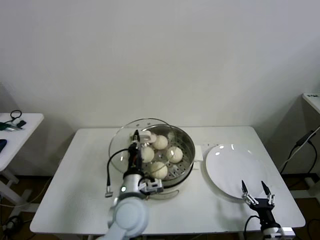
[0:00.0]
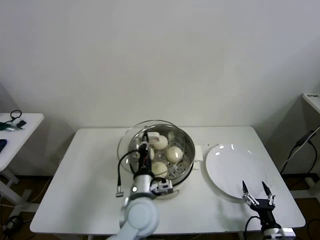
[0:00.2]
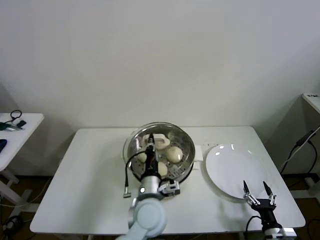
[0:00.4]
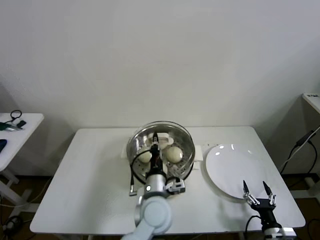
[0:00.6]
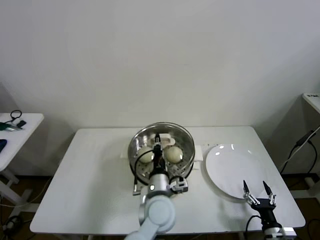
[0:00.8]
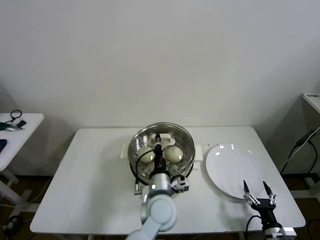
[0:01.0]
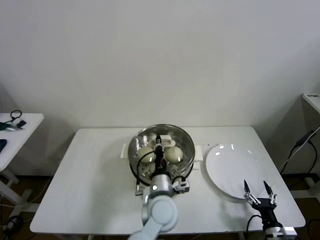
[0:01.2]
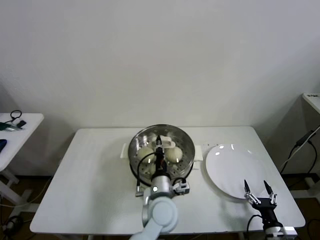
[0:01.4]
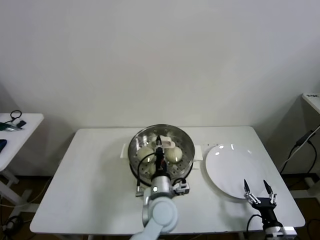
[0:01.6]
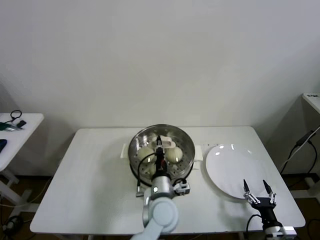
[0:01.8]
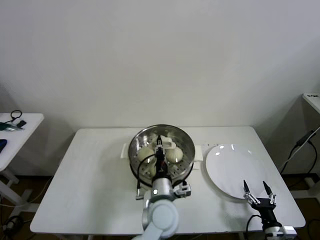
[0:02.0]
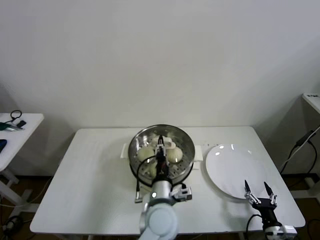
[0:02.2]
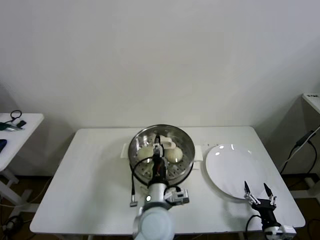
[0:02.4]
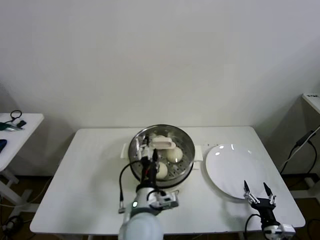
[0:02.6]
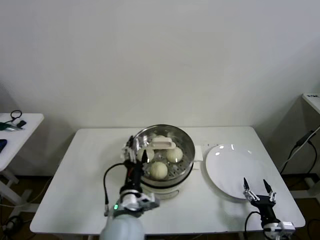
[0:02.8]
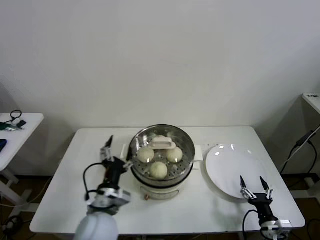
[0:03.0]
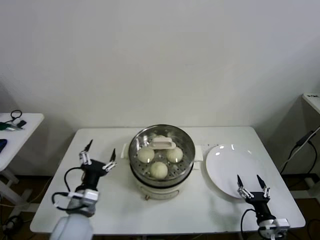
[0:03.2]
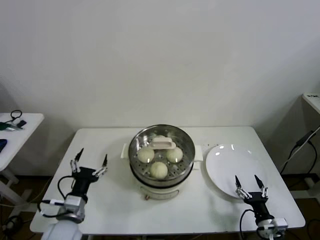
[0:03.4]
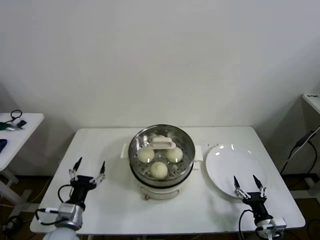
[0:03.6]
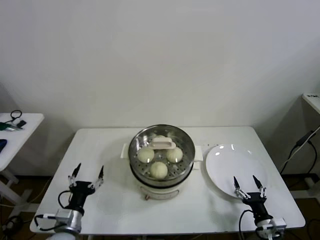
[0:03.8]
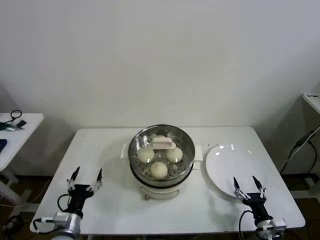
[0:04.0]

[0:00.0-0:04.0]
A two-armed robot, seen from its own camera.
Task of the whole recording: take steamed baozi put them in steamer then cover it.
Step, 0:00.0 to 0:02.4: Place the pot lid on the steamer with left gripper.
0:00.0 to 0:01.4: The left gripper goes approximately 10 cm to the right.
0:01.4 to 0:02.6: The left gripper shifts some 5 cm backward, and opens up.
0:02.6 to 0:04.0: The left gripper travels to the left and downward by roughly 30 cm.

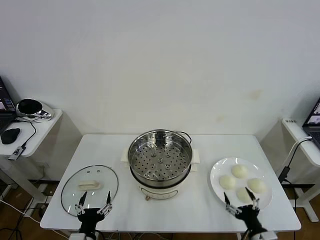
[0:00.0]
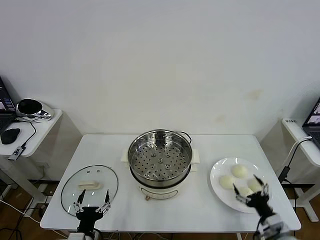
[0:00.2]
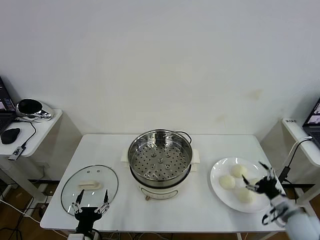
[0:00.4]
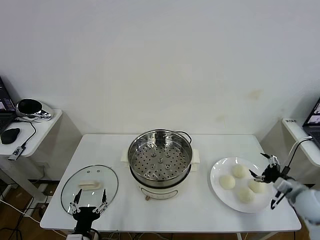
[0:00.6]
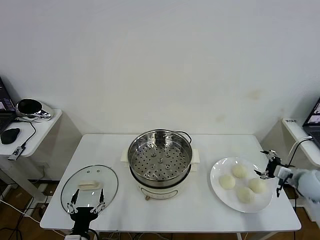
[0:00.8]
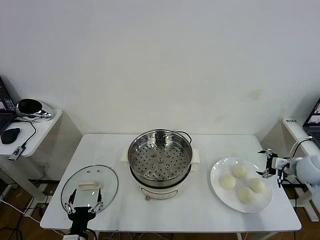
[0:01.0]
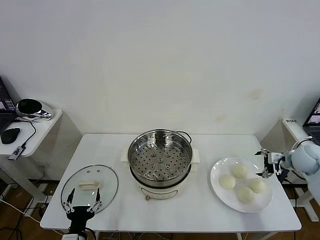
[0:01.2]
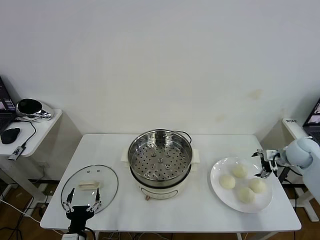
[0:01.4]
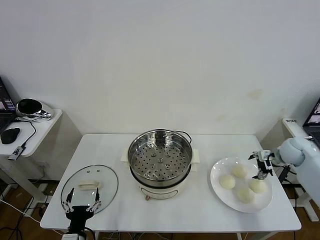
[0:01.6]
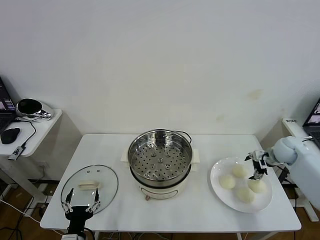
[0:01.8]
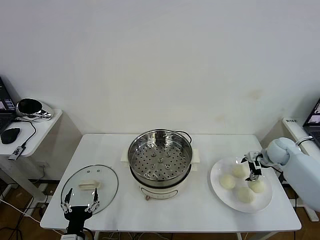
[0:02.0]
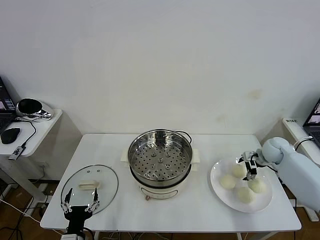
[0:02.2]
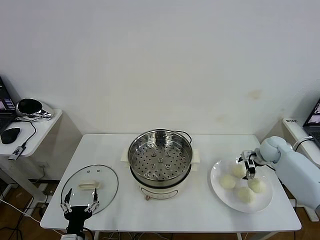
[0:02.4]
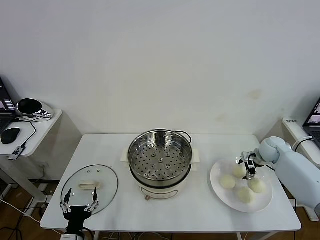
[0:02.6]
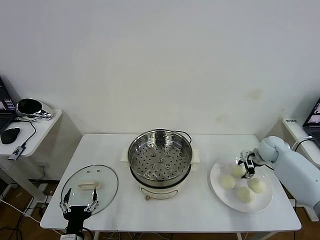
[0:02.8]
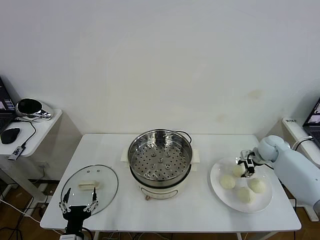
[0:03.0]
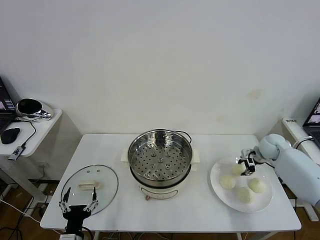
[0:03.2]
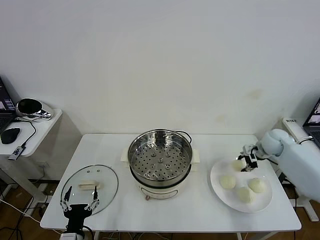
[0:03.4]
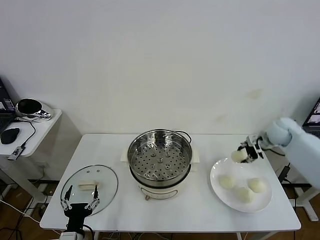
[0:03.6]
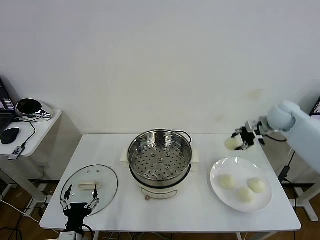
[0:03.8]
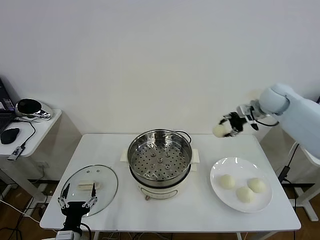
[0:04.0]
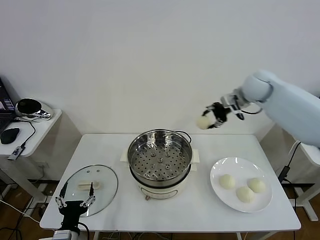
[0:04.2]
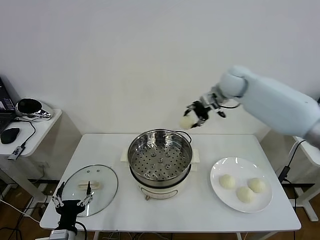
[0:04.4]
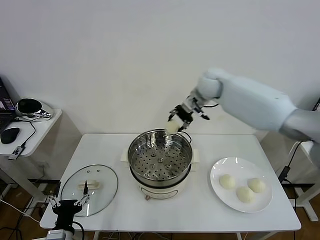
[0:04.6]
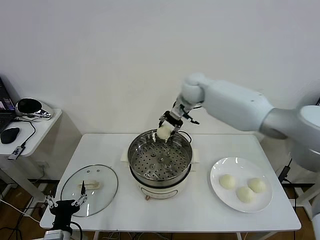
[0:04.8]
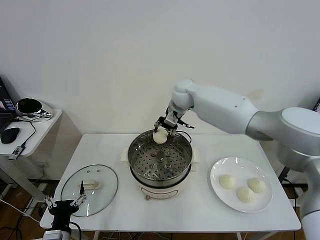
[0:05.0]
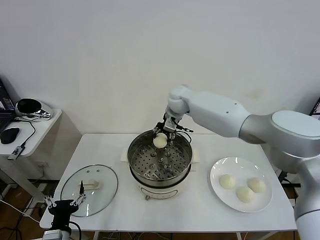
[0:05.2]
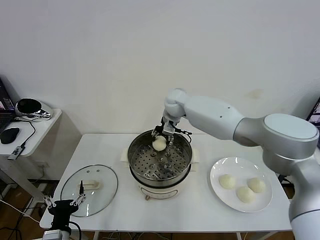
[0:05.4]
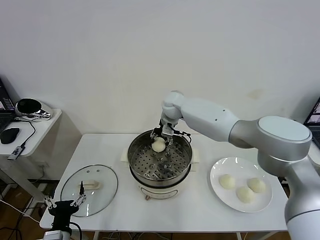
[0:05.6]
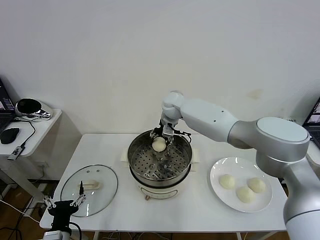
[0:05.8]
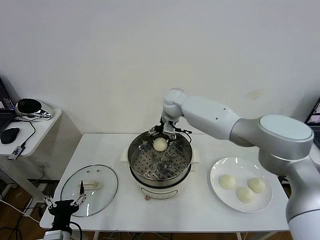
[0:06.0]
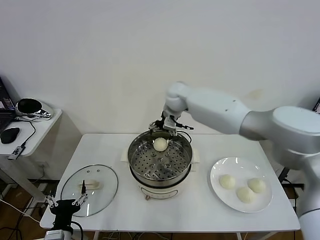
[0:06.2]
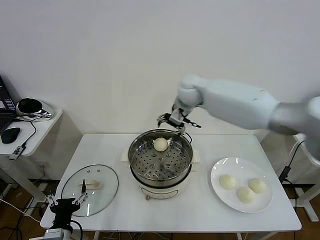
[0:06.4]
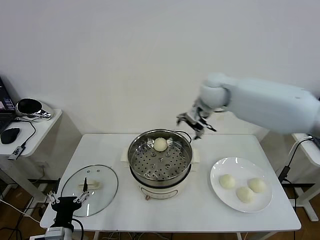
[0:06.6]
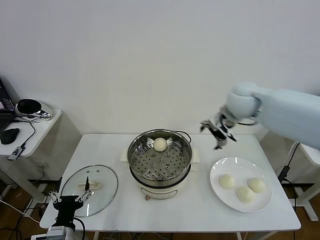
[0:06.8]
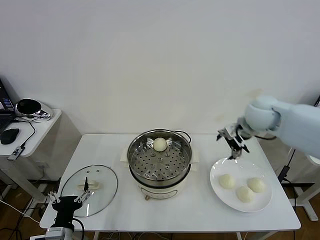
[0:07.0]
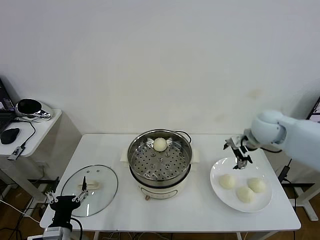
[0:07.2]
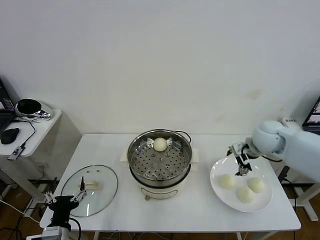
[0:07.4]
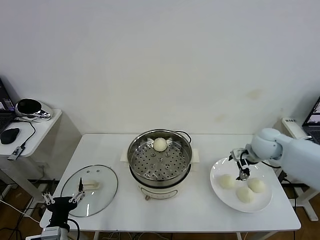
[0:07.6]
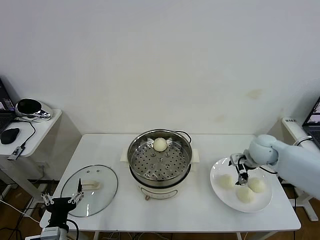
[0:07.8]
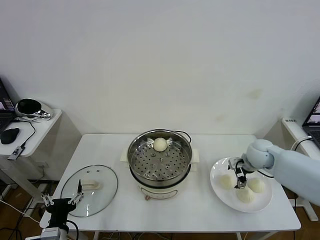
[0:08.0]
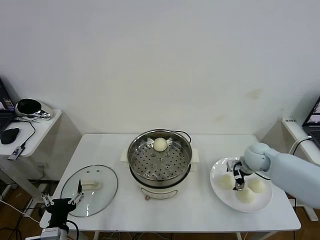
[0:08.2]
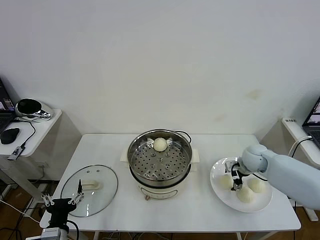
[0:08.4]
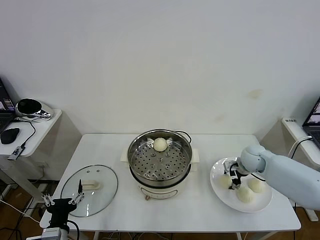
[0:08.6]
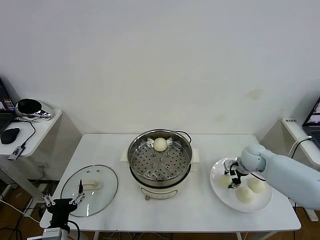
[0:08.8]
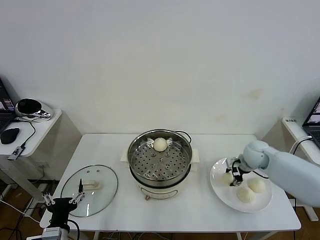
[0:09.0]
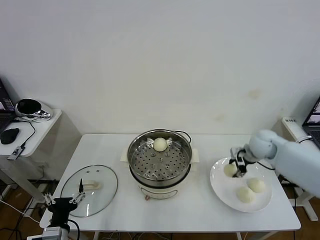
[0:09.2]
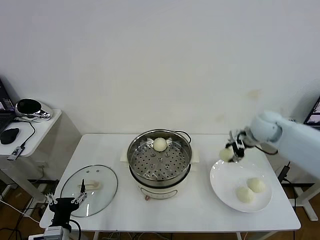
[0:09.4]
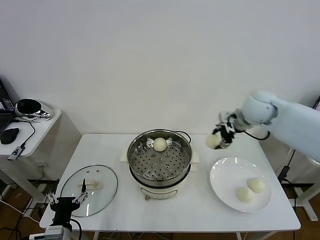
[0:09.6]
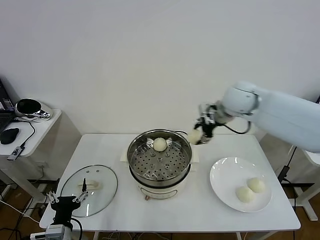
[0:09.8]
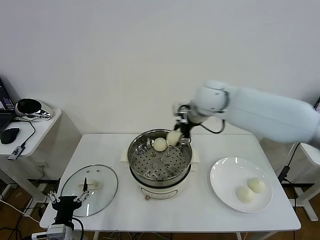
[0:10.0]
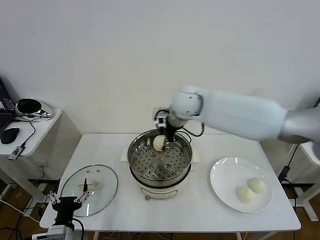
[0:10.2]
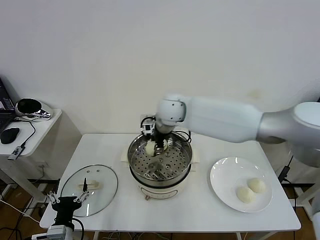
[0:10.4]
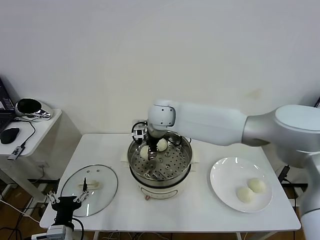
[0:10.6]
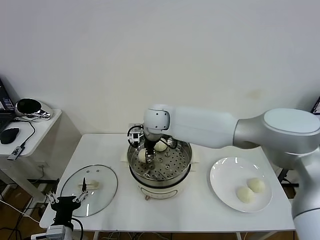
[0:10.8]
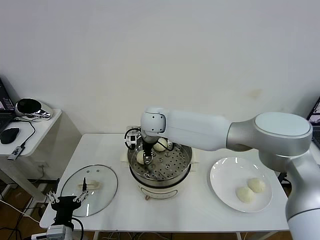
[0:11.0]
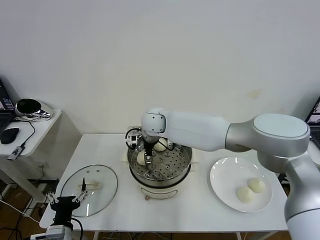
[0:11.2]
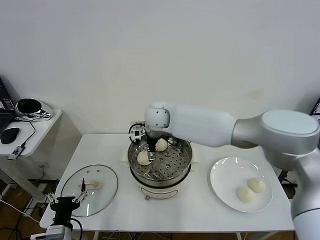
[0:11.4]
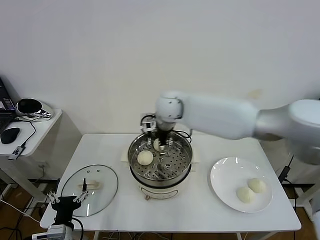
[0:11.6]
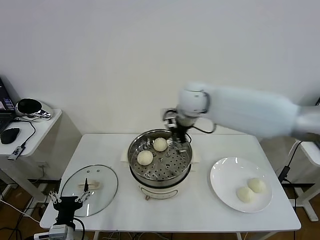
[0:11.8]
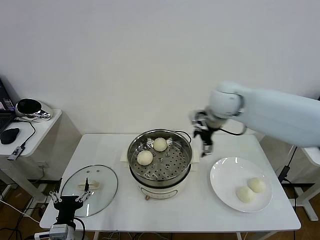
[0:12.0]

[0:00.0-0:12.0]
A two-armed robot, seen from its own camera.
Task of the whole recording: take steamed baozi put them in steamer then cover it.
Step, 0:00.0 to 0:02.8: Grasp the baozi in the plate with right gripper.
Step, 0:03.0 to 0:06.0: Place the baozi on the steamer with right gripper.
Step, 0:06.2 to 0:08.8: Grasp the baozi in the plate with right gripper.
Step, 0:09.0 to 0:11.4: Place the baozi on the steamer with right gripper.
0:01.6 to 0:03.0: The right gripper ends up some 5 cm from where it was, and closes up.
0:03.0 to 0:04.4: The right gripper is displaced to the left and upward by roughly 35 cm.
0:04.4 to 0:06.0: The right gripper shifts roughly 15 cm to the left and downward, and opens its fingers.
0:06.0 to 0:07.6: The right gripper moves to the right and backward, some 35 cm.
0:07.6 to 0:09.0: The right gripper closes up.
0:09.0 to 0:10.4: The right gripper goes about 35 cm to the left and upward.
0:10.4 to 0:12.0: The right gripper is displaced to the right by about 20 cm, and opens up.

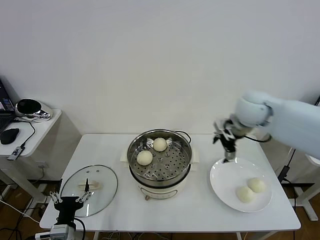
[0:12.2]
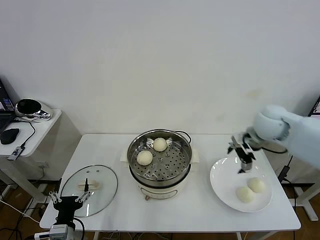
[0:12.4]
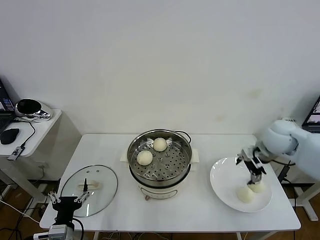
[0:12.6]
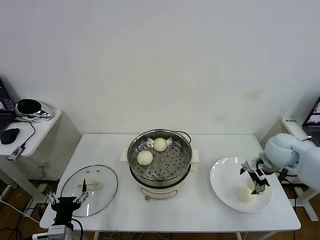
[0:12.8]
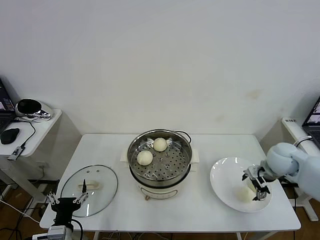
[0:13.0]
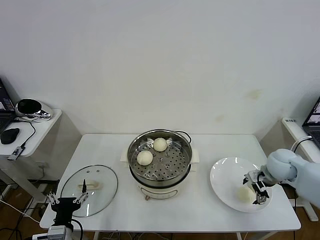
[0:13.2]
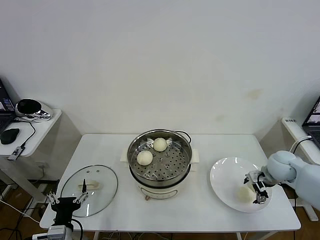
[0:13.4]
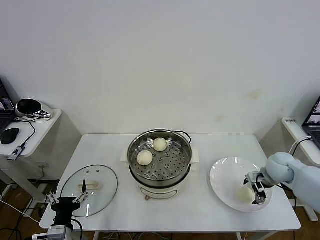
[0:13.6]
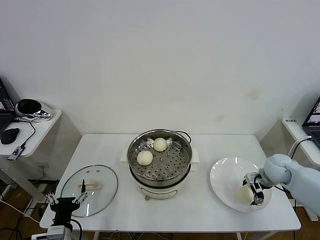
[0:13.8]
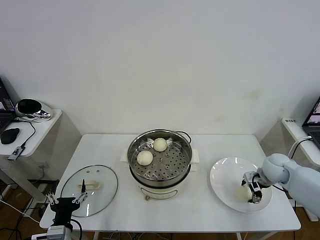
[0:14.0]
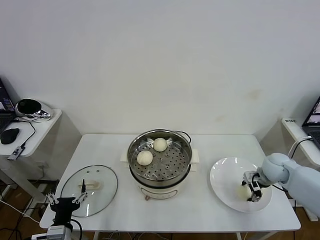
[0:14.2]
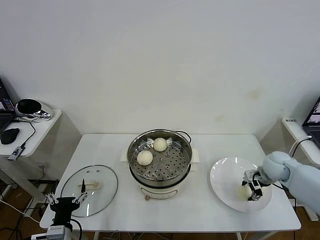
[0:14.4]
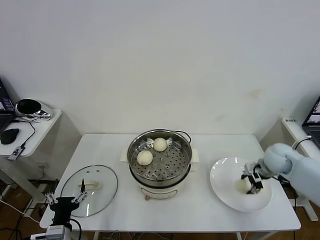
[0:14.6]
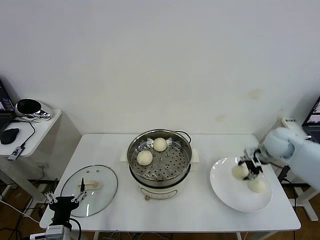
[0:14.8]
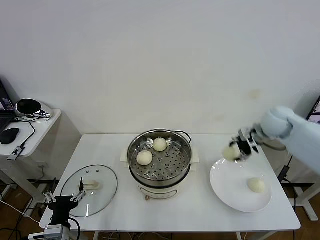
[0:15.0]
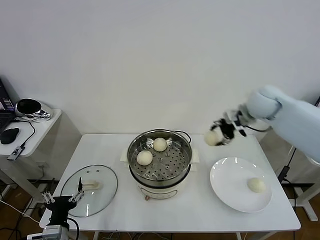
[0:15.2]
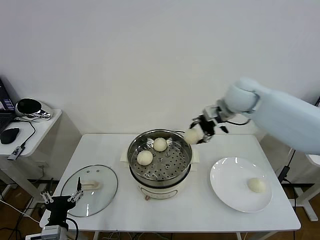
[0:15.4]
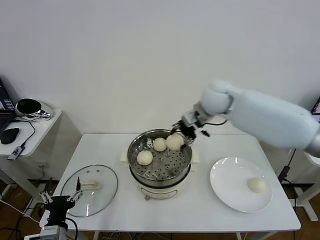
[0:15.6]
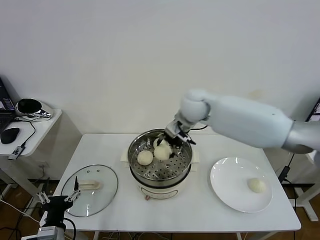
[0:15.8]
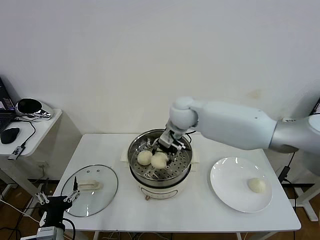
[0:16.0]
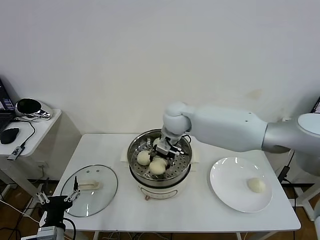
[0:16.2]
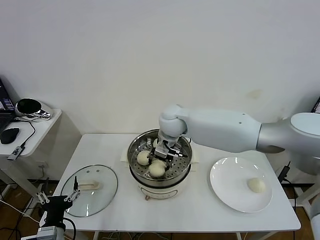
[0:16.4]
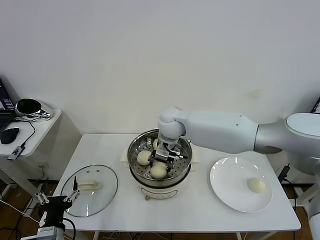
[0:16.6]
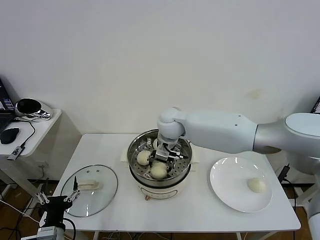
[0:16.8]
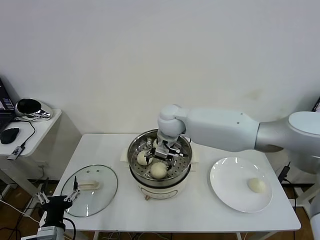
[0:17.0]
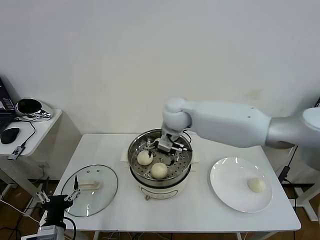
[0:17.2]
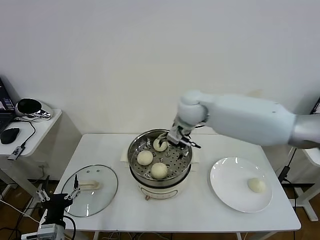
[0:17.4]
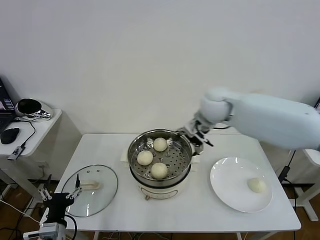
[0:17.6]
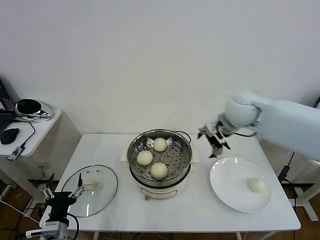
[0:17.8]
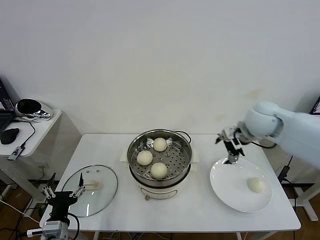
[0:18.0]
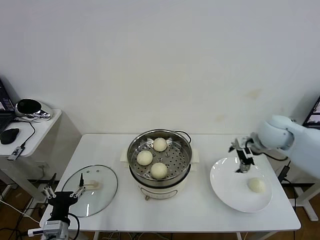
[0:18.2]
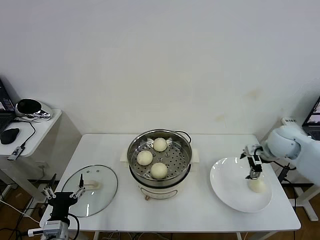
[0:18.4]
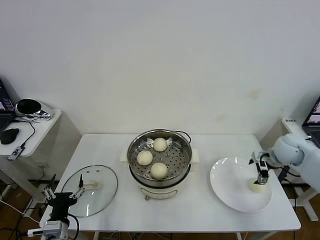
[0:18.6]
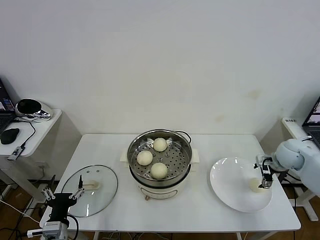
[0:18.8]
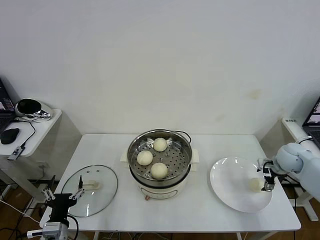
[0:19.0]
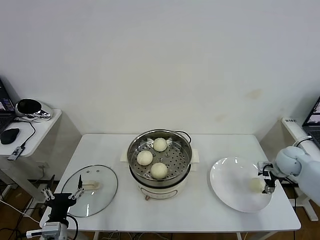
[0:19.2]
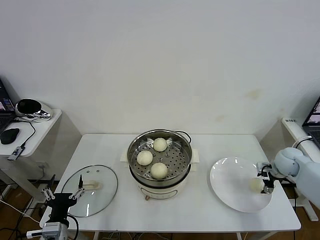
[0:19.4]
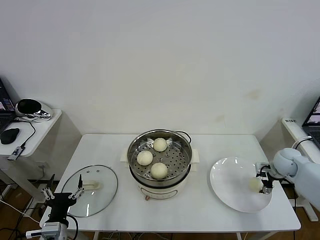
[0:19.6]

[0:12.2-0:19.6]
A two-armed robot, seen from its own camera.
Task of the whole recording: take steamed baozi put them in steamer then cover it.
Step, 0:12.2 to 0:14.2: Grasp the baozi in the plate with right gripper.
Step, 0:14.4 to 0:17.2: Place the baozi on the steamer with right gripper.
0:12.2 to 0:13.6: The right gripper travels downward and to the right by approximately 25 cm.
0:13.6 to 0:15.2: The right gripper is displaced upward, to the left and forward by about 25 cm, and closes.
0:15.2 to 0:16.6: The right gripper shifts approximately 25 cm to the left.
0:16.6 to 0:18.2: The right gripper travels to the right by about 30 cm, and opens up.
0:18.2 to 0:19.6: The right gripper moves downward and to the right, roughly 20 cm.
